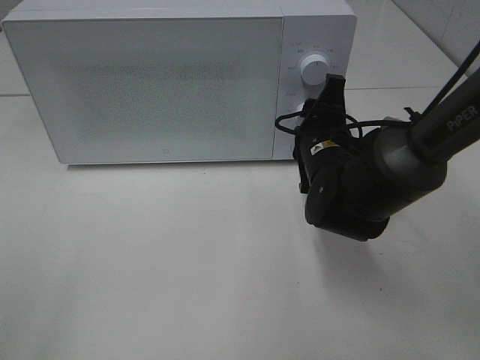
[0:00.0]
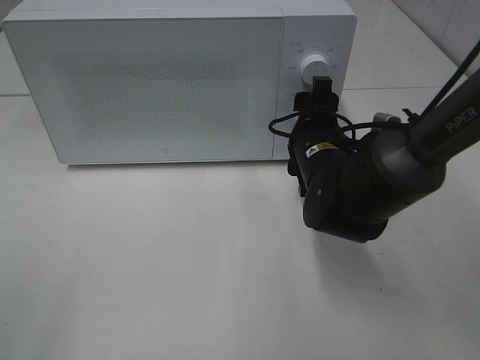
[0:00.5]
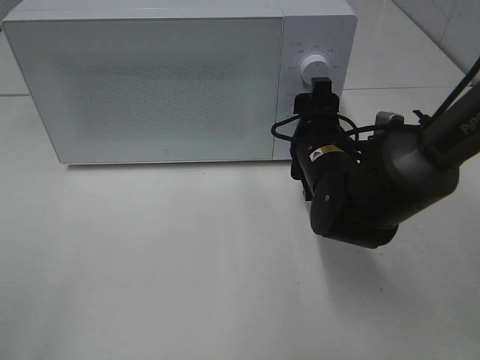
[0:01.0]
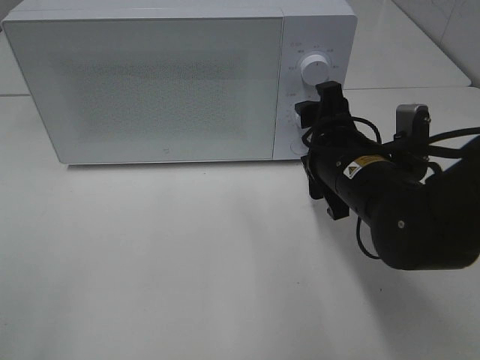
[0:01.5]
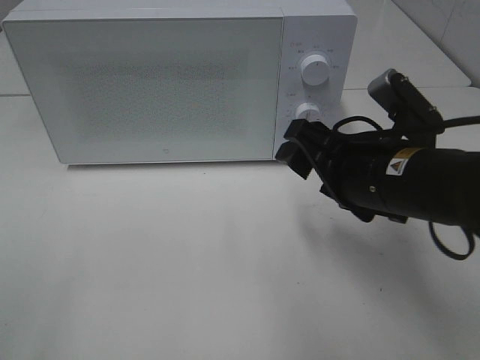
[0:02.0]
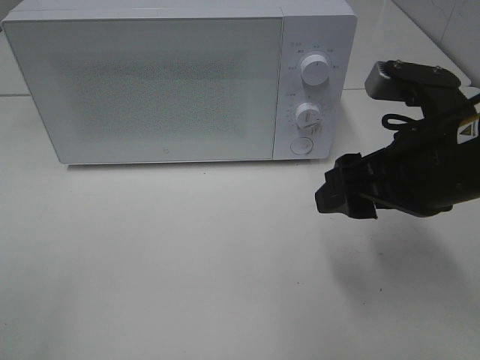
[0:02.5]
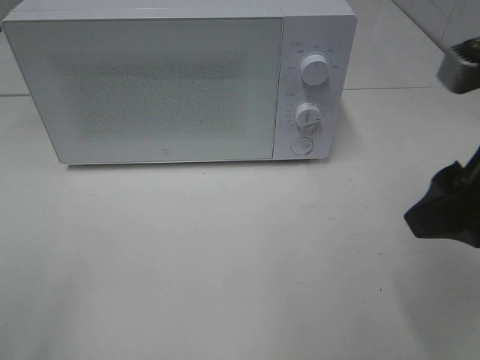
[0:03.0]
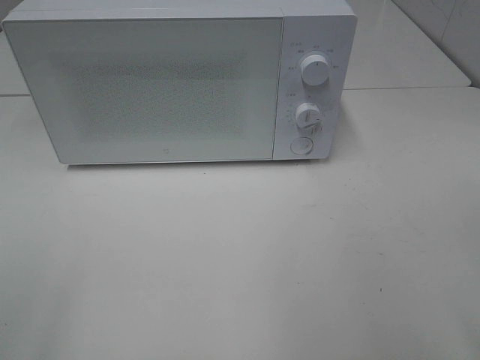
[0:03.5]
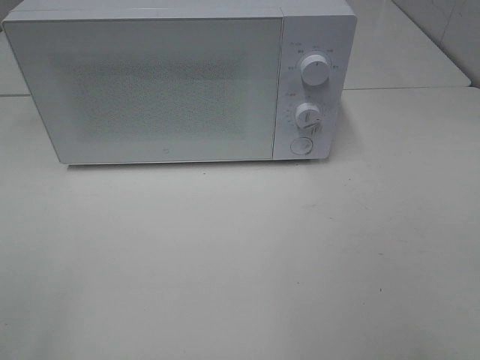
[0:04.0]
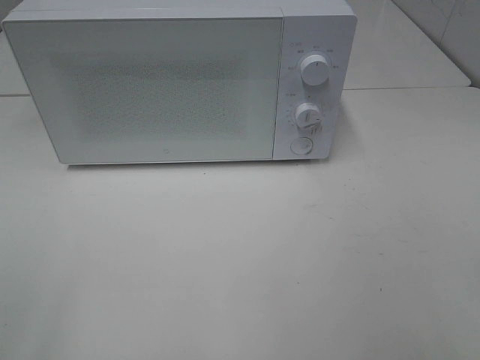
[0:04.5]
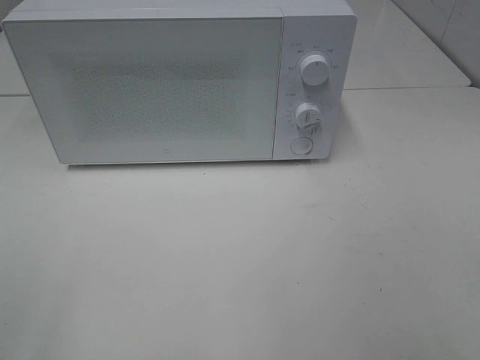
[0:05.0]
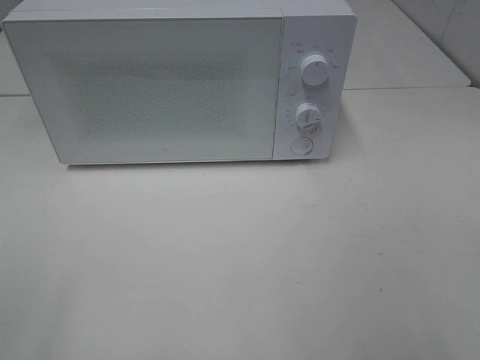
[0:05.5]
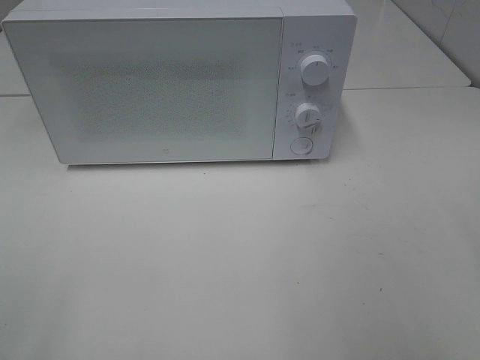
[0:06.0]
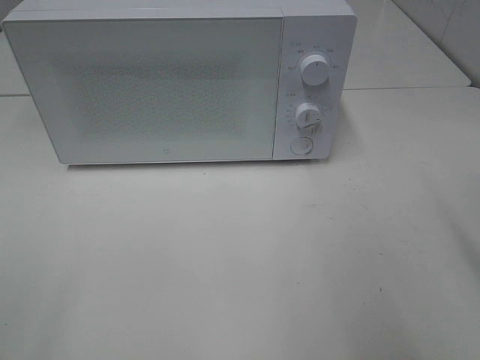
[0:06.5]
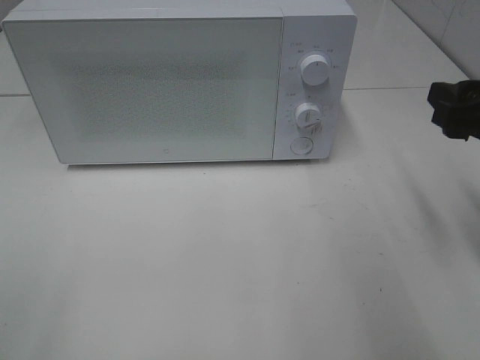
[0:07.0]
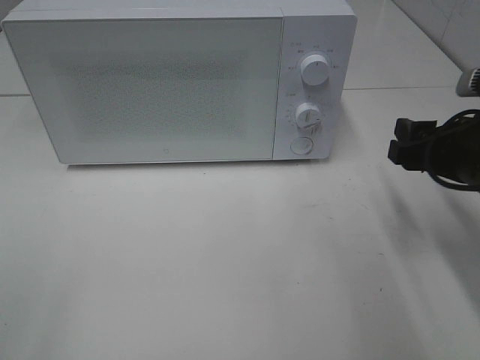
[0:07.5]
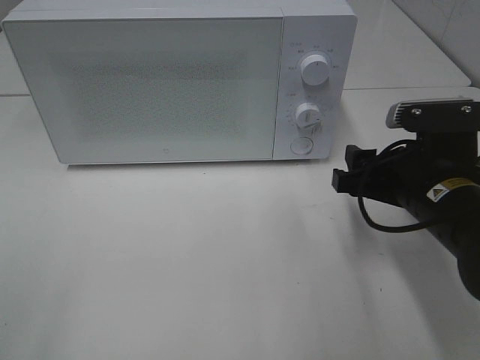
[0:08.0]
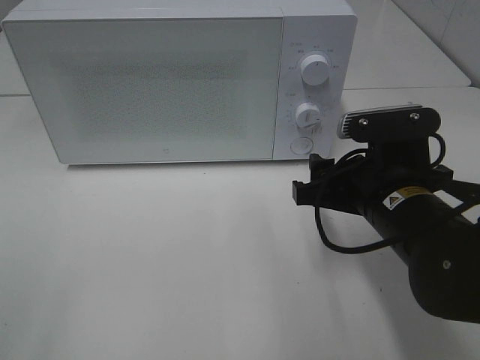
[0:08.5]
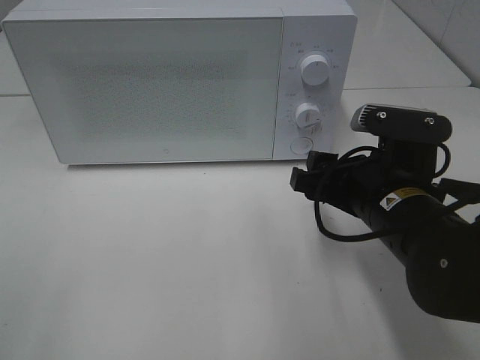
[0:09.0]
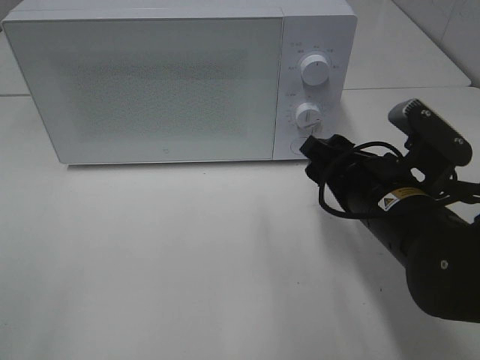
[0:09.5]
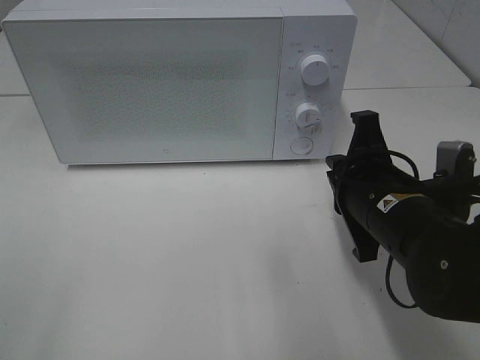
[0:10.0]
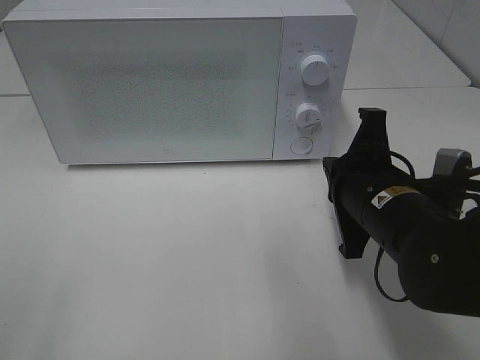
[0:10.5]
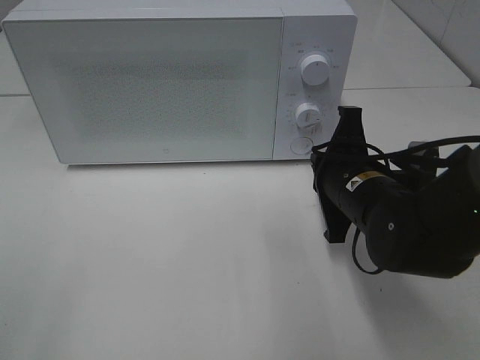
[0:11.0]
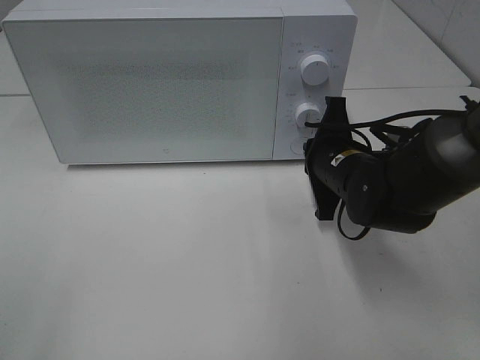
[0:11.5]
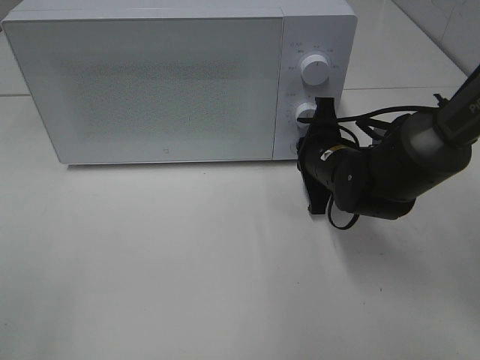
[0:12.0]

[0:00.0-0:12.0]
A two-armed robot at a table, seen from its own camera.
Task of the whole recording: Heat Sandwich.
0.0 to 2.0 s: The right gripper travels backward and upward by about 10 cm.
2.0 to 4.0 s: The right gripper travels backward, upward and to the right by roughly 30 cm.
6.0 to 8.0 s: The right gripper shifts about 25 cm forward, downward and to the left.
8.0 to 10.0 s: The right gripper closes.
10.0 to 12.0 s: The right gripper is displaced forward and downward by roughly 15 cm.

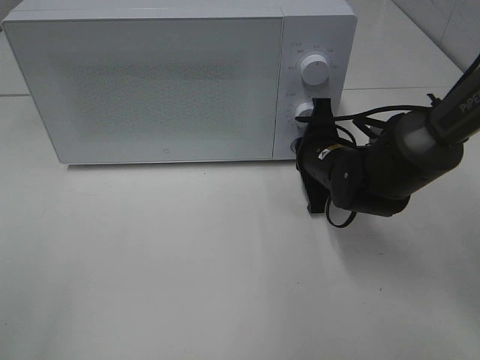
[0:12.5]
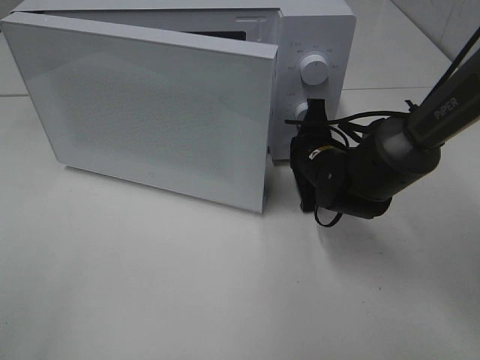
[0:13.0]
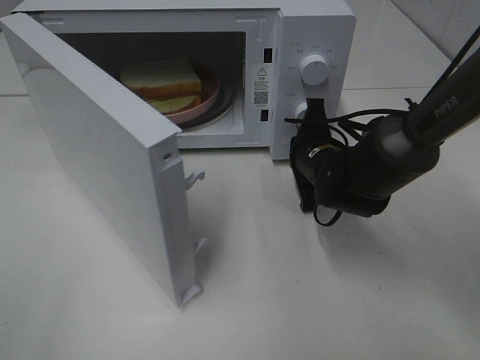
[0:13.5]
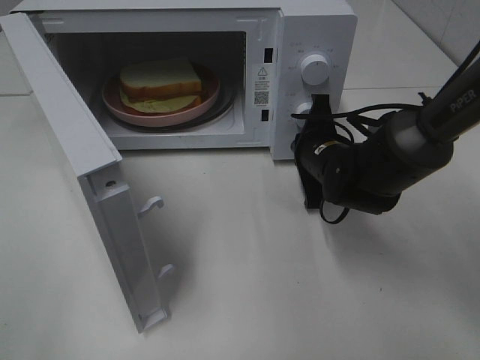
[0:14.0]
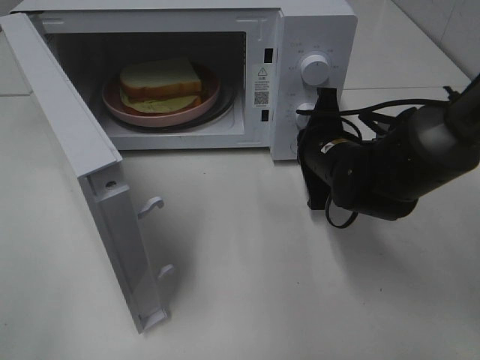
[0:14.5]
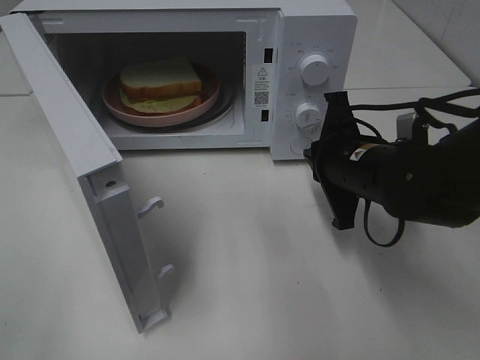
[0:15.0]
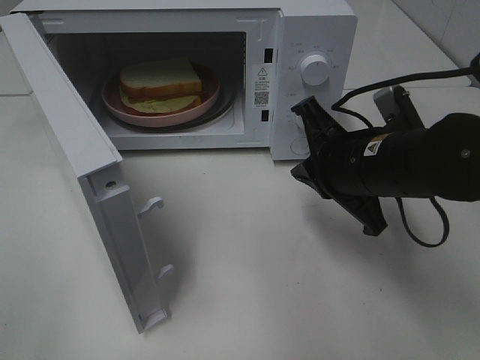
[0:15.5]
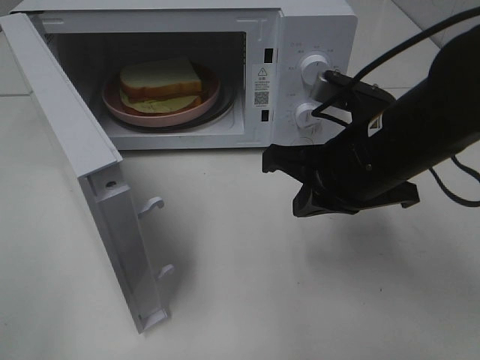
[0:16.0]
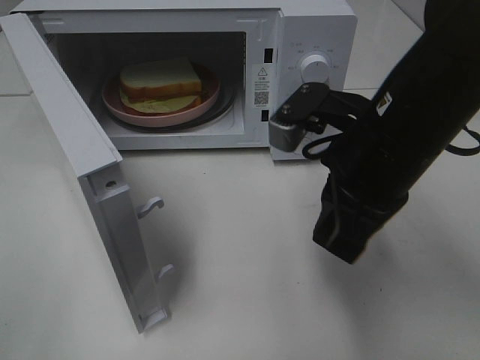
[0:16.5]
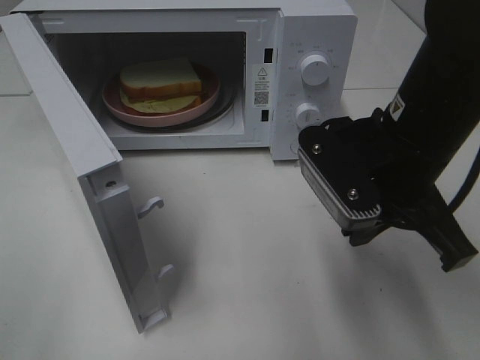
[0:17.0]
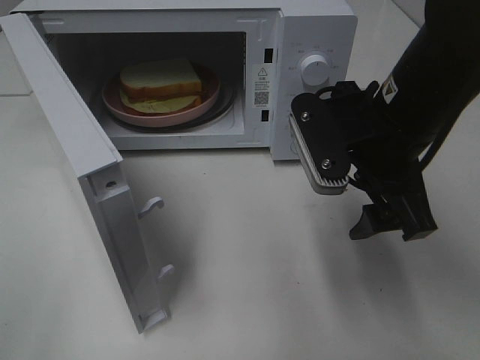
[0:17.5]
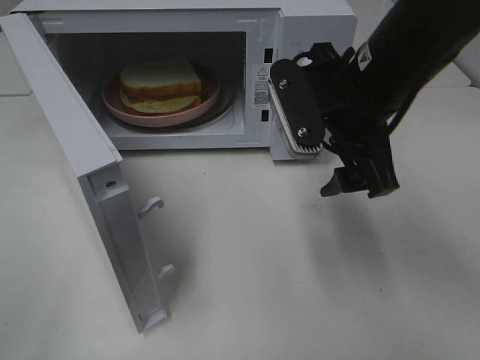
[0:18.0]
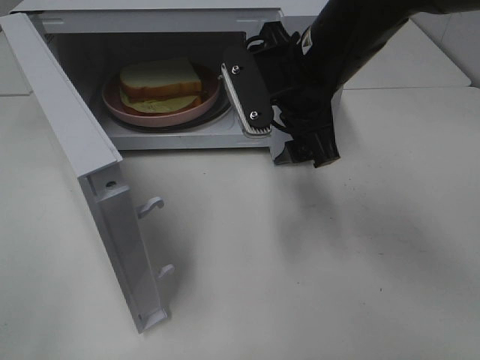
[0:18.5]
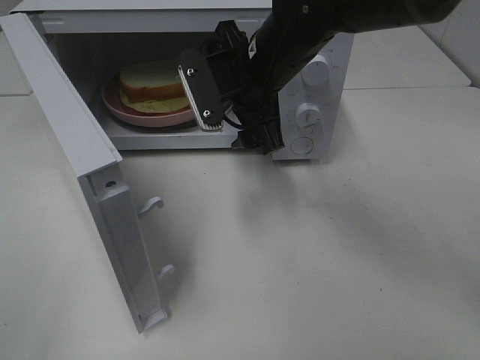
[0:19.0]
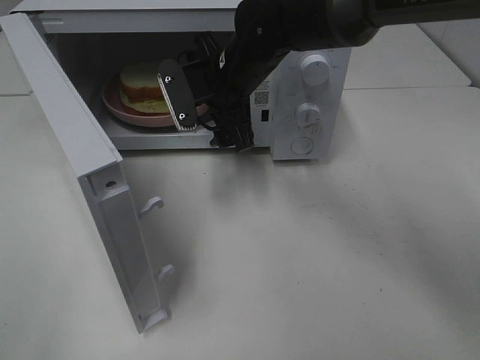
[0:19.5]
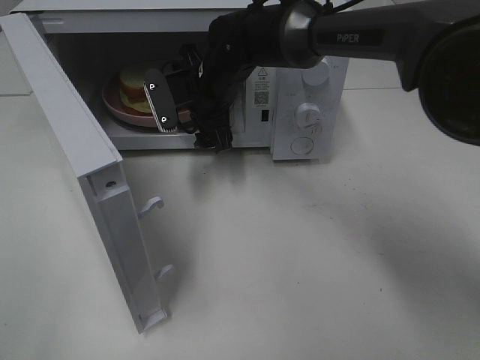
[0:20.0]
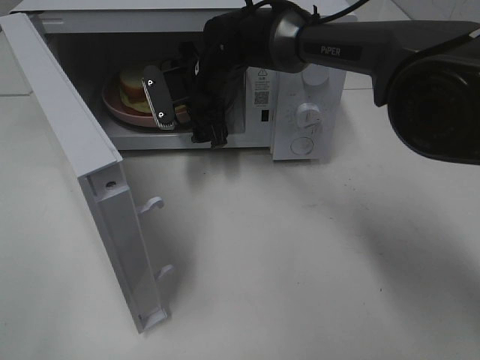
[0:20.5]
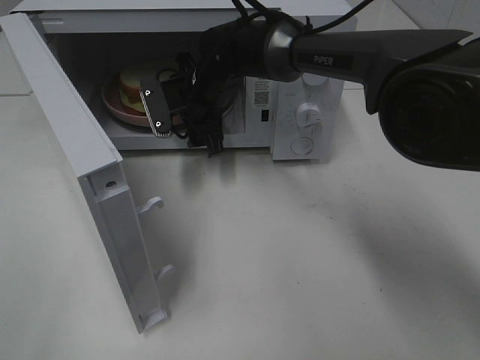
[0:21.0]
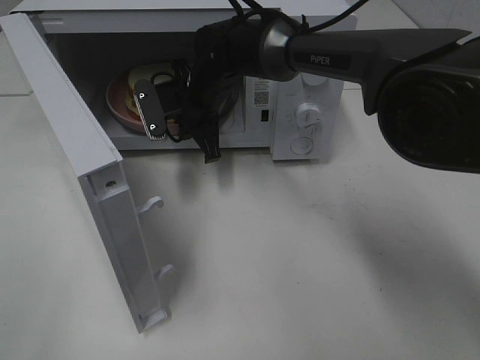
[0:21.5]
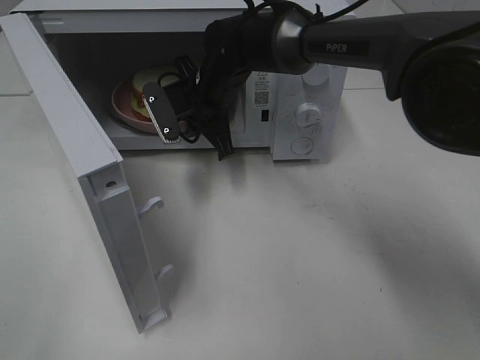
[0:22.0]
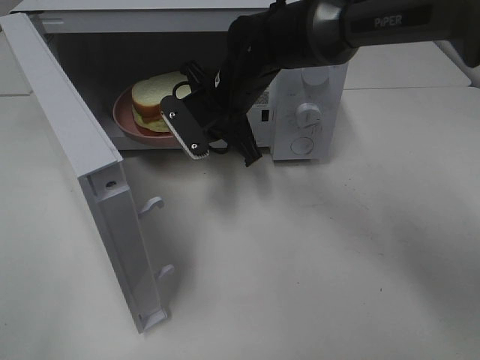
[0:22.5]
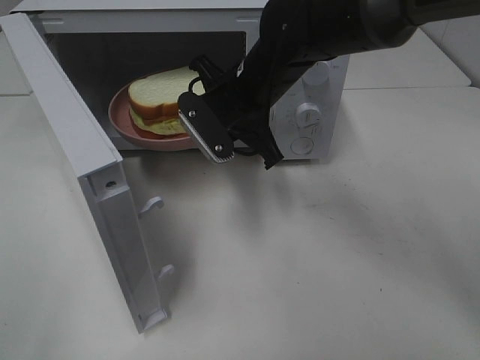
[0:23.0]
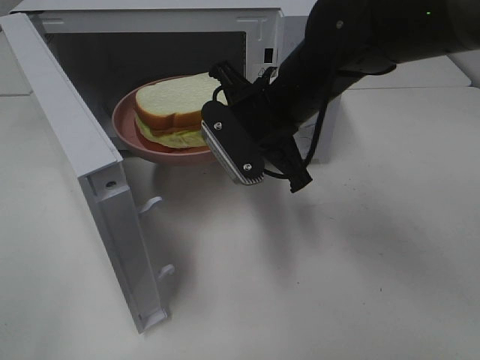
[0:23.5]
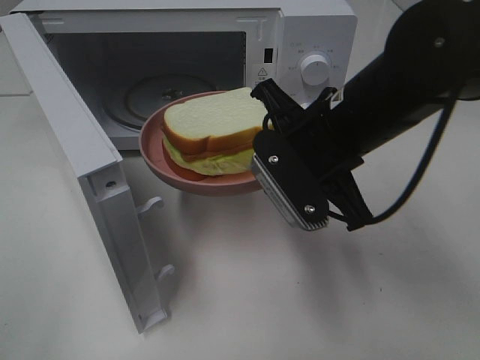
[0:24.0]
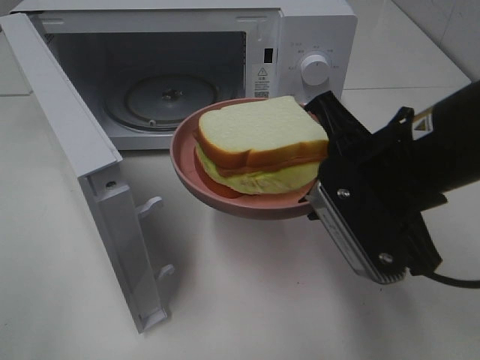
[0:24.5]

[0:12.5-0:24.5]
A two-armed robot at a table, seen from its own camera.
Task of the whole recording: Heat Sandwich.
Step, 12.5 to 14.5 s: Right hand: press the switch.
Step, 15.0 to 21.5 s: Right hand: grab the plate with the sandwich.
14.5 to 16.5 s: The right gripper goes approximately 15 cm upward and backward.
16.5 to 18.5 s: The right gripper travels forward by about 10 cm, and opens.
18.5 to 20.5 s: The right gripper moves forward, to the left and downward, some 20 cm.
20.5 to 22.5 s: The right gripper goes roughly 5 cm backward, and closes.
22.5 to 24.5 s: The right gripper shifts some 25 cm backward and to the right.

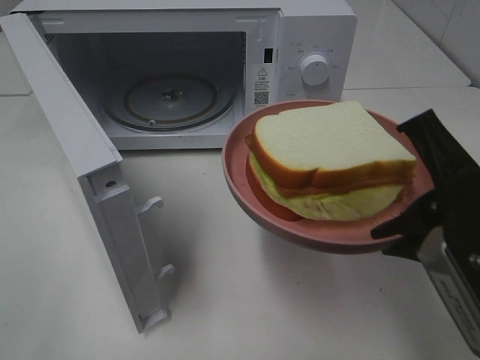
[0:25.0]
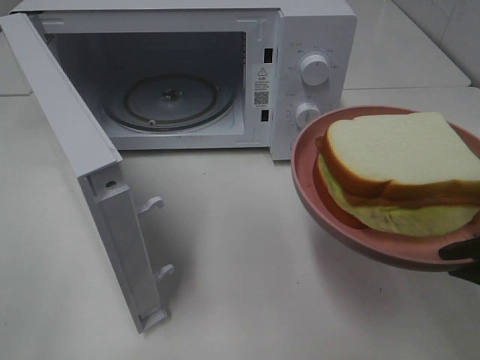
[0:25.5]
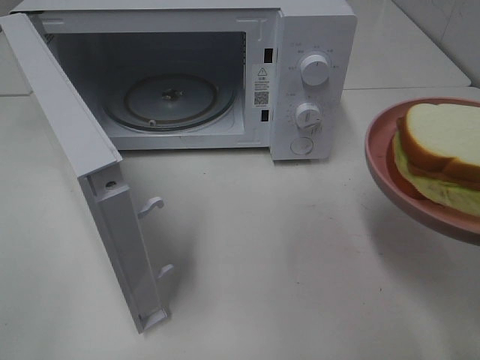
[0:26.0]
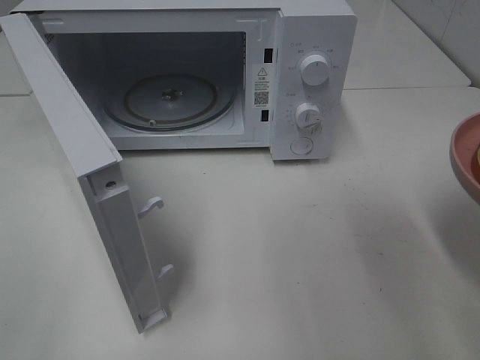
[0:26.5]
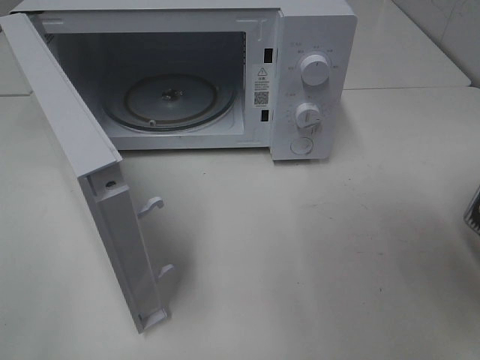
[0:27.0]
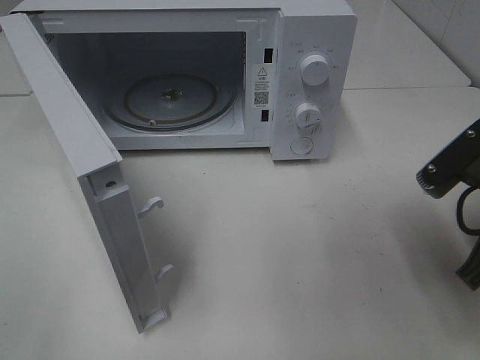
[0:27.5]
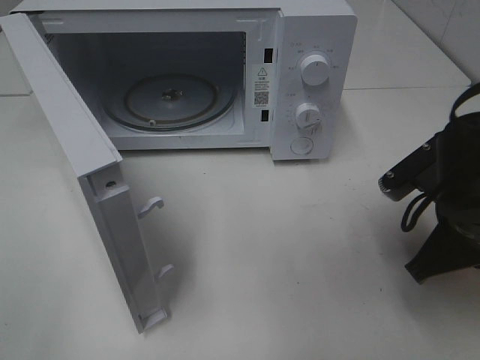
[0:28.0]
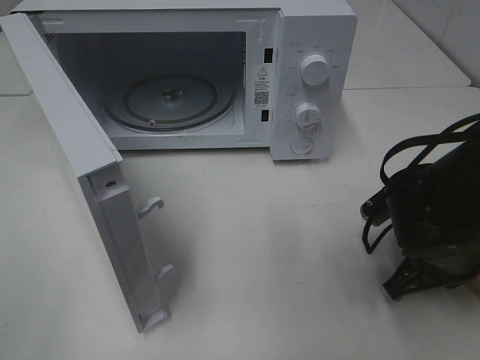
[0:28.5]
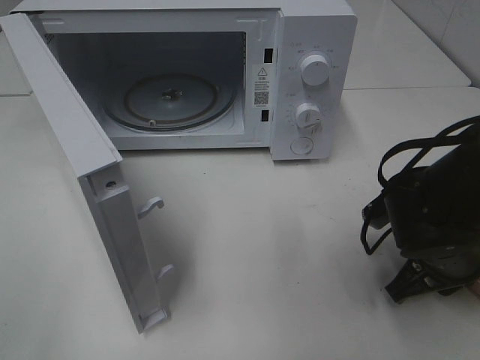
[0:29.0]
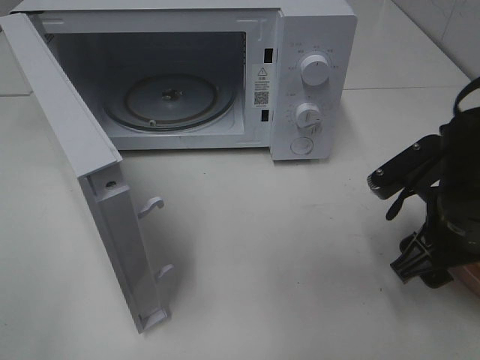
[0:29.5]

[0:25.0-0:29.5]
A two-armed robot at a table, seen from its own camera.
Task of the whole recording: Heat Sandwich.
25.0 to 27.0 s: The right gripper heads to the right, covering some 5 cm.
27.0 to 29.5 s: The right gripper travels forward, downward and to the left by some 10 cm, and opens its fingers.
